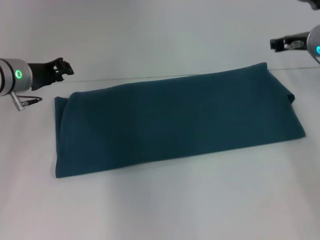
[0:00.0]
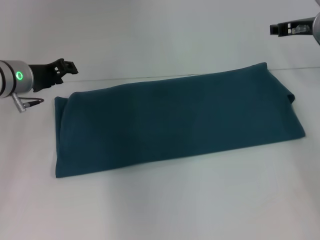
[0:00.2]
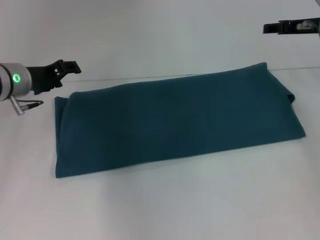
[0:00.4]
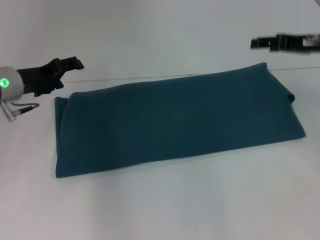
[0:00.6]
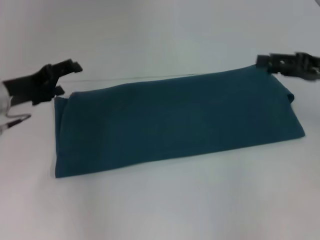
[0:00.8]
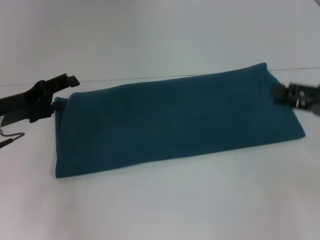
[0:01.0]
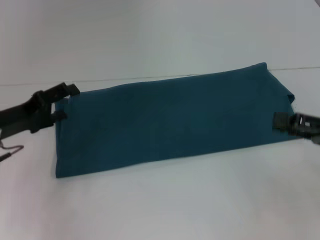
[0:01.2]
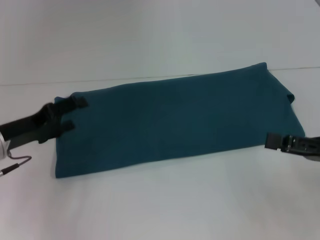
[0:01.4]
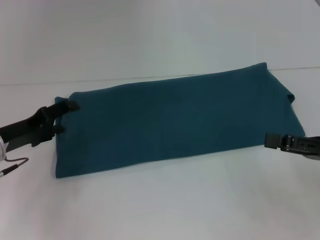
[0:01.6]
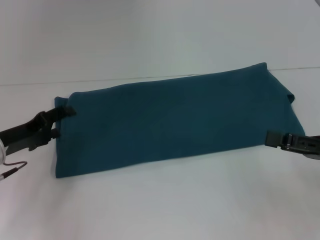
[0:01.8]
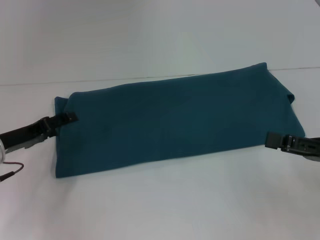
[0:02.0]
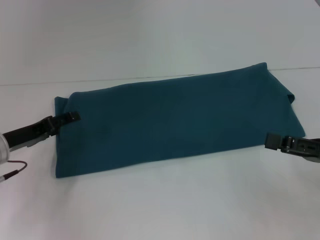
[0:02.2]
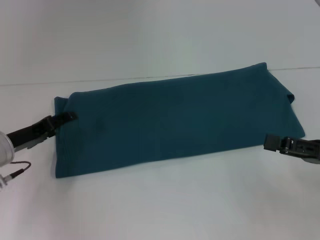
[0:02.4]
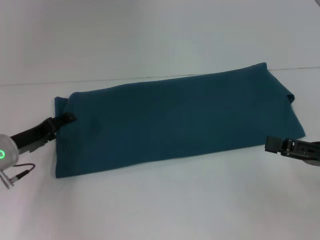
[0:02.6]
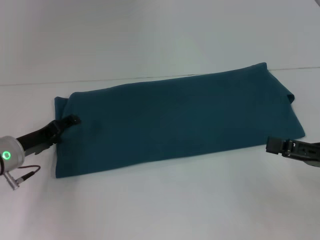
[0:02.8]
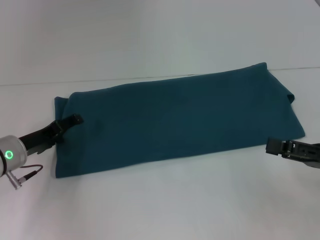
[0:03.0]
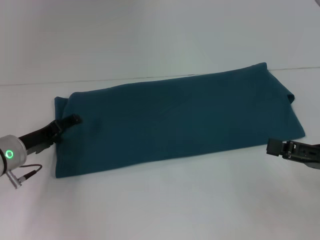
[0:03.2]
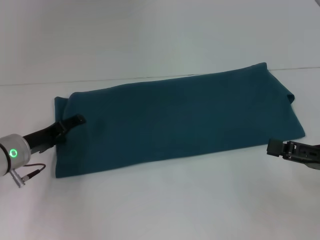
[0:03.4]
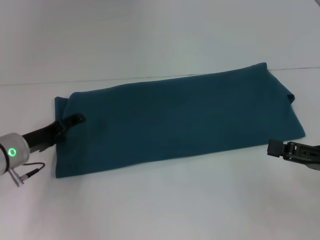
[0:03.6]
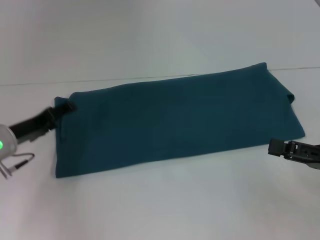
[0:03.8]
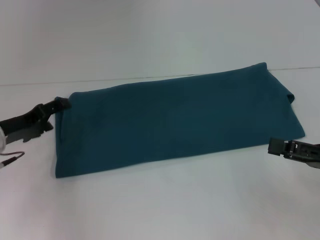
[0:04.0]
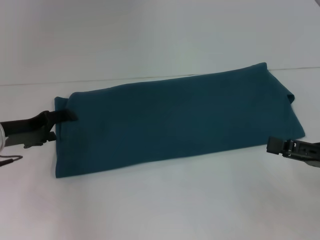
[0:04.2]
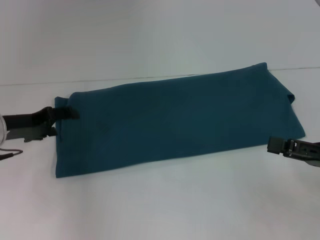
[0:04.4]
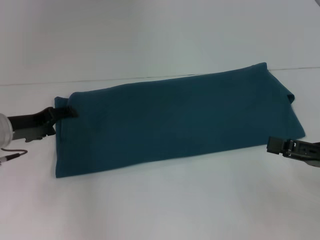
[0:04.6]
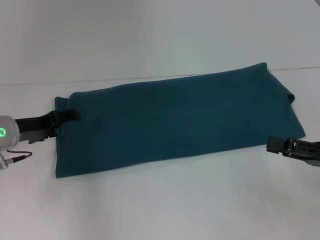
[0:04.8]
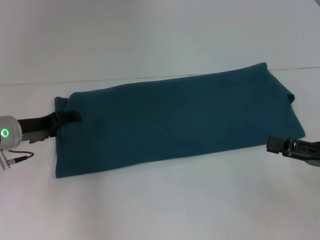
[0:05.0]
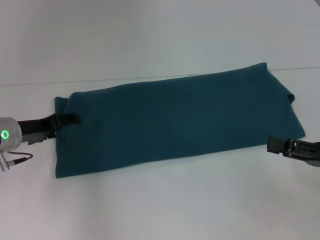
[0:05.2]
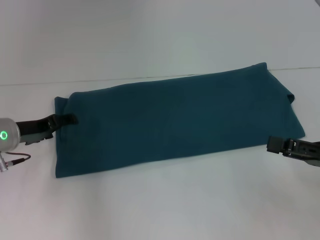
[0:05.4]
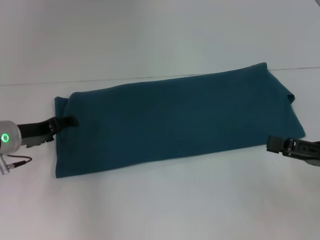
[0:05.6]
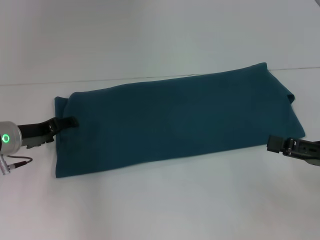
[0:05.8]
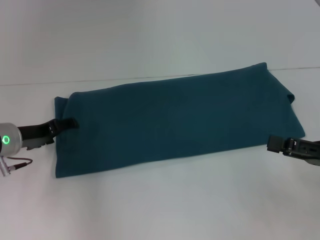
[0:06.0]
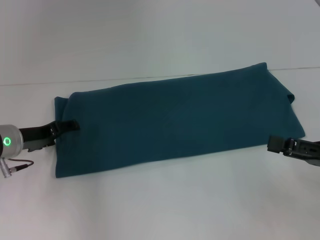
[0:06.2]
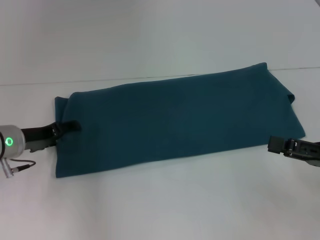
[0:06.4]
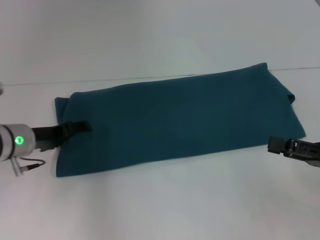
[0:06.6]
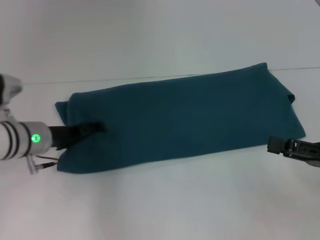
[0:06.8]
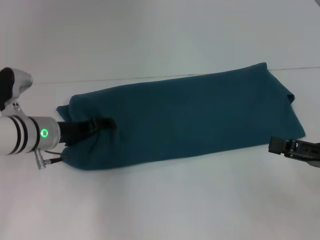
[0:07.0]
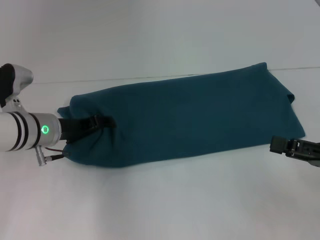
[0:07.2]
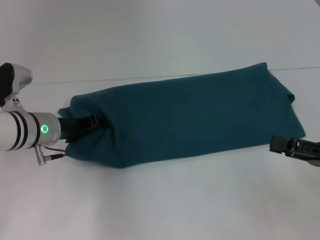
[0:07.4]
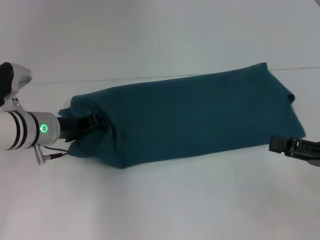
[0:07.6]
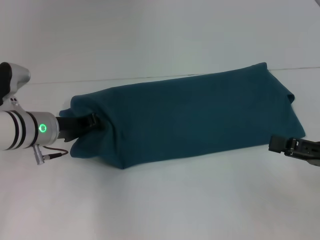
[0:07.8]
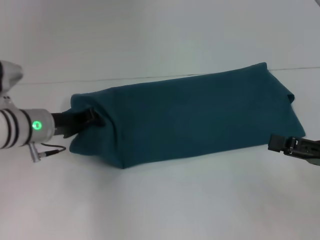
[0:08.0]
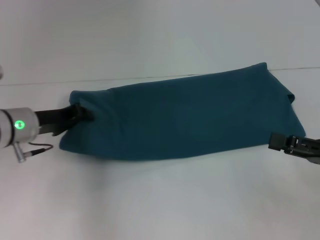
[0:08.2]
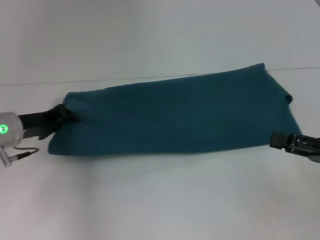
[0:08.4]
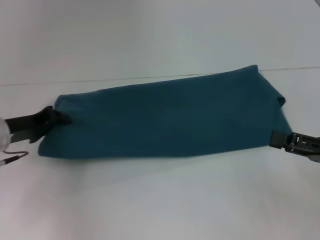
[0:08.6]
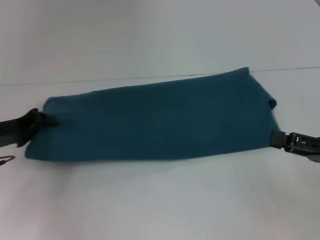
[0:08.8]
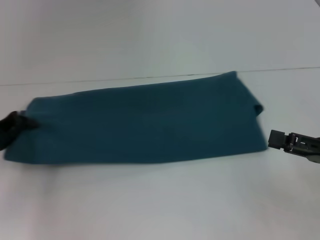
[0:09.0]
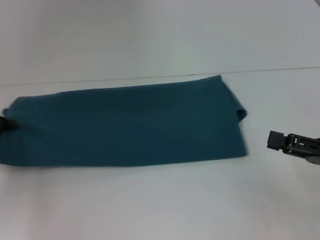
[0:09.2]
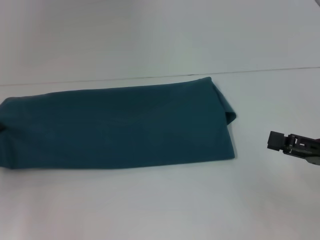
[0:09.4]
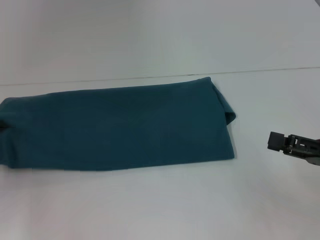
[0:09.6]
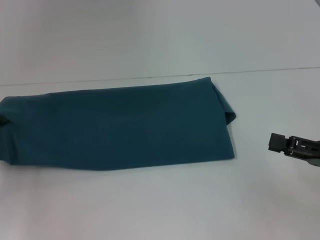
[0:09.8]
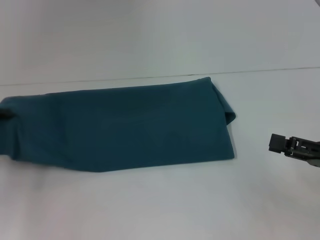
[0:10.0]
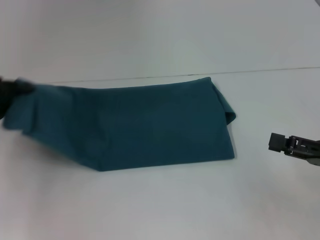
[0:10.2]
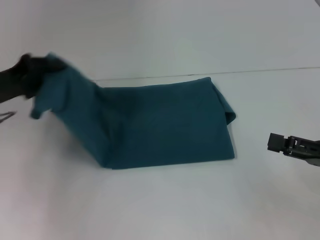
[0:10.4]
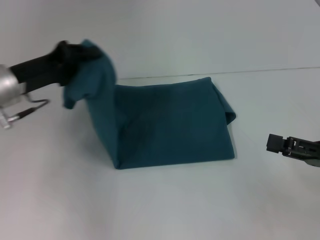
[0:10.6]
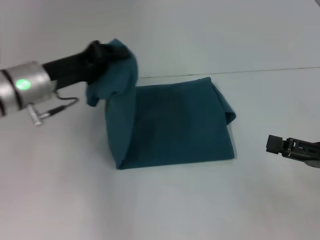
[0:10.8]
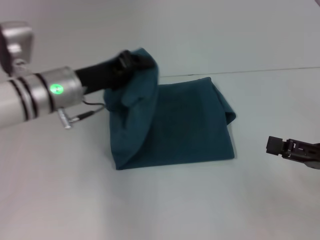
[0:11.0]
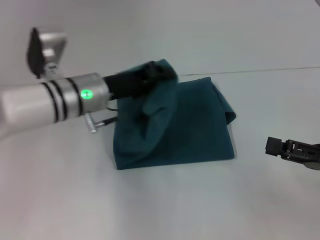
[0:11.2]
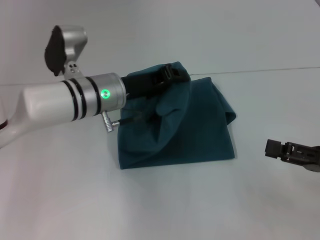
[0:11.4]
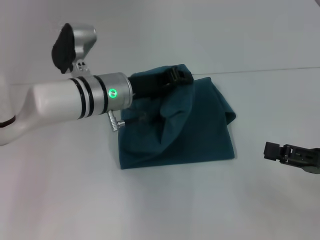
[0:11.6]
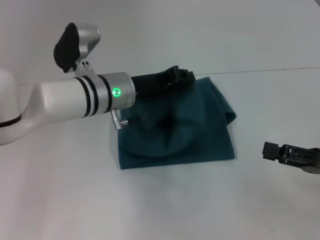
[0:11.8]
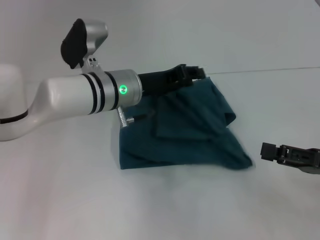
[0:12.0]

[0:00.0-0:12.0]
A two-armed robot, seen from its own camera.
0:00.0 to 0:01.6: The right gripper moves backward, roughly 20 cm, and opens. Meanwhile the left gripper travels backward and downward by approximately 10 cm, and opens.
0:01.6 to 0:03.0: The grippers move only a little.
0:03.0 to 0:04.4: The left gripper goes about 5 cm upward.
0:04.4 to 0:06.0: The grippers move only a little.
0:06.0 to 0:07.6: The left gripper shifts approximately 5 cm to the right, and closes up.
0:07.6 to 0:09.0: The left gripper goes some 10 cm to the left, and closes up.
0:09.0 to 0:10.4: The left gripper travels upward by approximately 5 cm.
0:10.4 to 0:12.0: The left gripper moves to the right, some 20 cm.

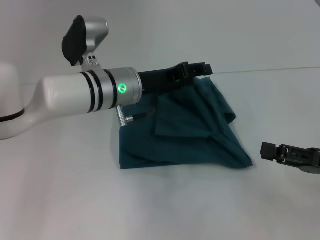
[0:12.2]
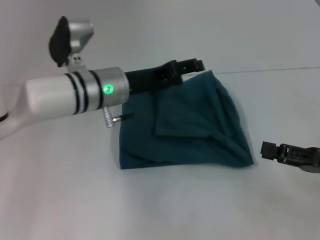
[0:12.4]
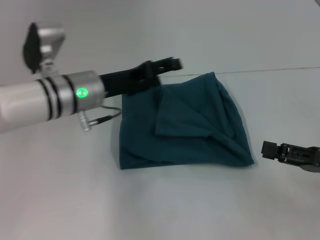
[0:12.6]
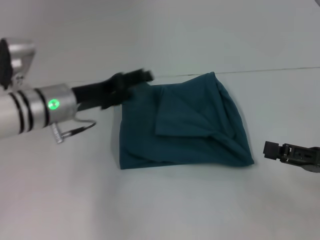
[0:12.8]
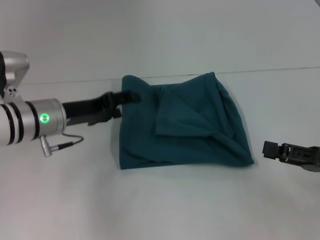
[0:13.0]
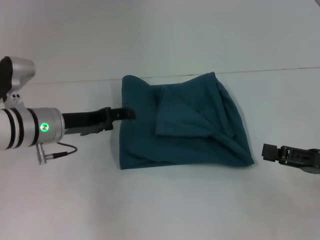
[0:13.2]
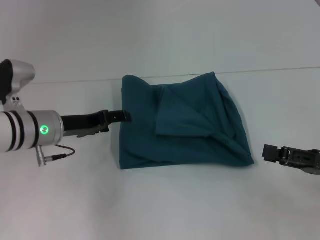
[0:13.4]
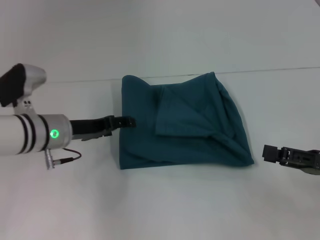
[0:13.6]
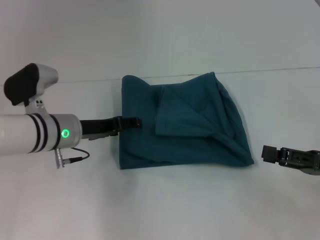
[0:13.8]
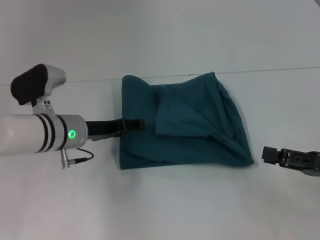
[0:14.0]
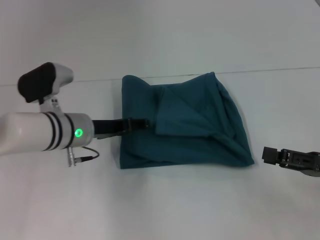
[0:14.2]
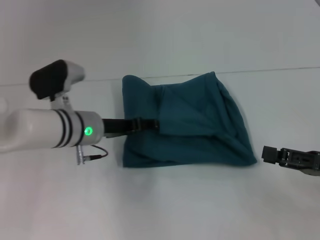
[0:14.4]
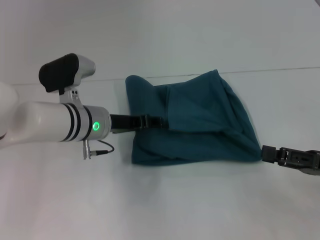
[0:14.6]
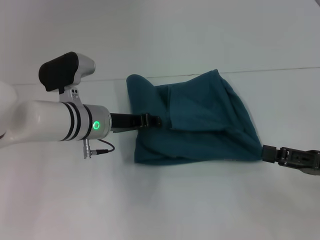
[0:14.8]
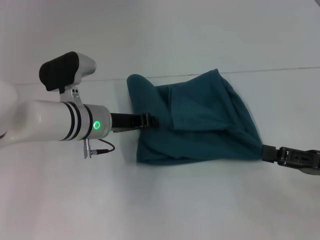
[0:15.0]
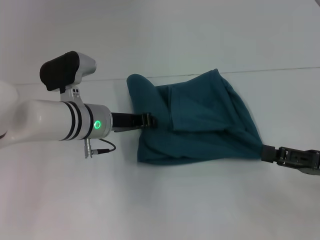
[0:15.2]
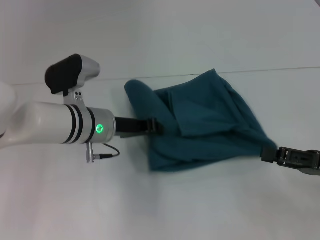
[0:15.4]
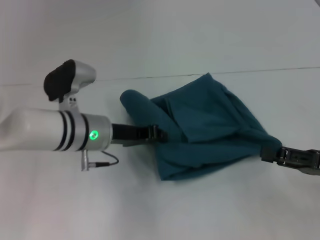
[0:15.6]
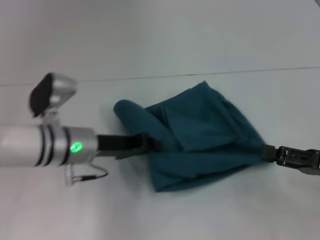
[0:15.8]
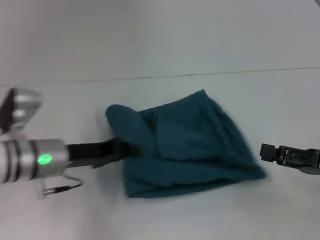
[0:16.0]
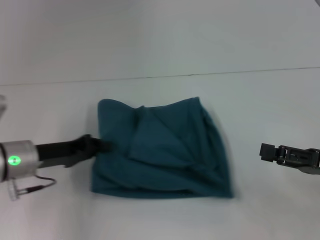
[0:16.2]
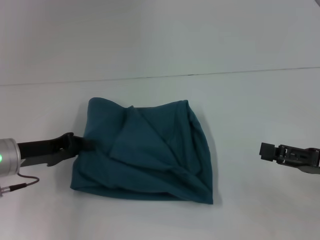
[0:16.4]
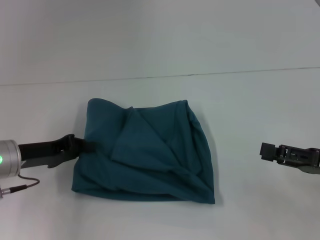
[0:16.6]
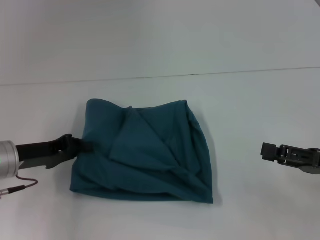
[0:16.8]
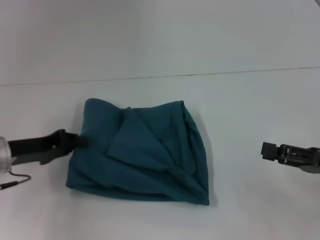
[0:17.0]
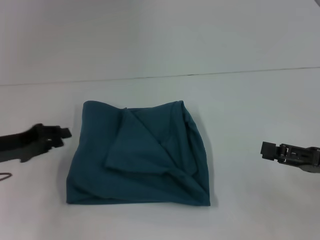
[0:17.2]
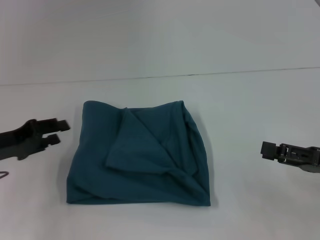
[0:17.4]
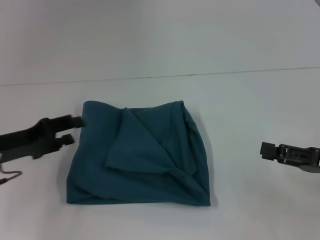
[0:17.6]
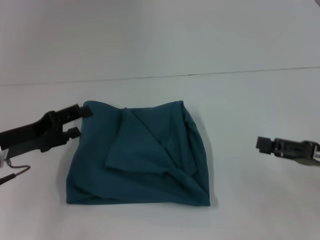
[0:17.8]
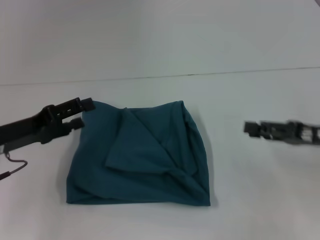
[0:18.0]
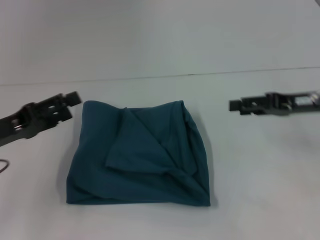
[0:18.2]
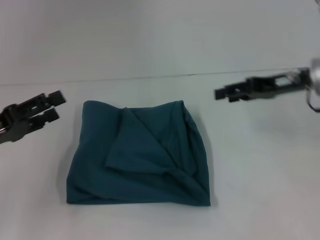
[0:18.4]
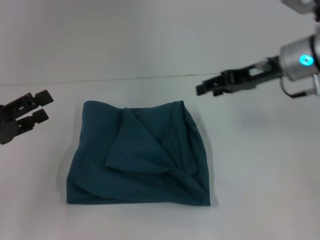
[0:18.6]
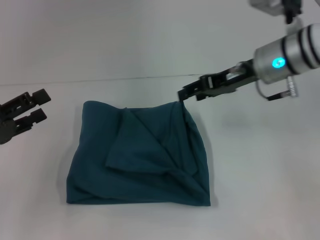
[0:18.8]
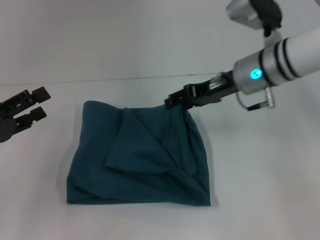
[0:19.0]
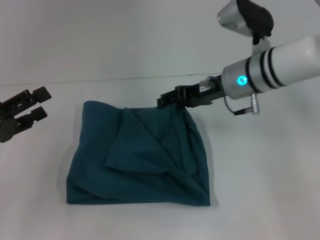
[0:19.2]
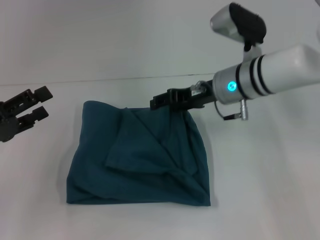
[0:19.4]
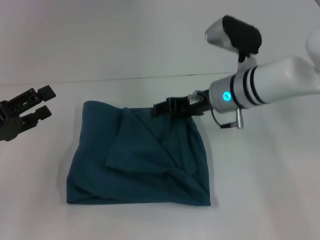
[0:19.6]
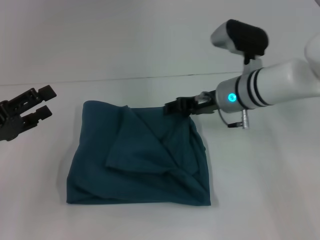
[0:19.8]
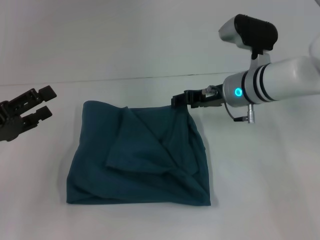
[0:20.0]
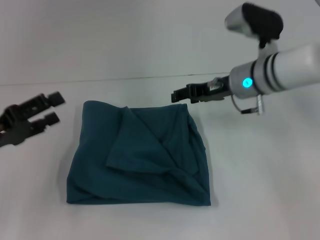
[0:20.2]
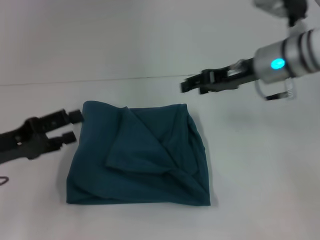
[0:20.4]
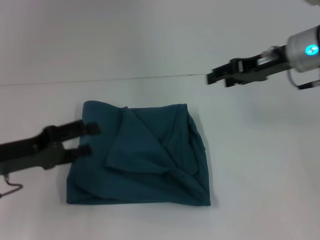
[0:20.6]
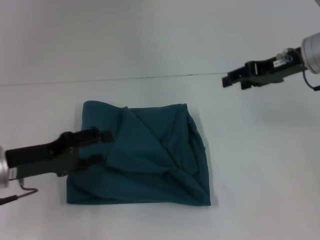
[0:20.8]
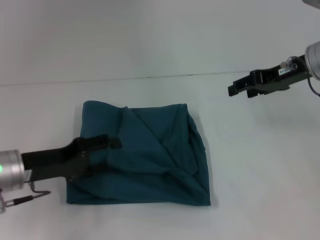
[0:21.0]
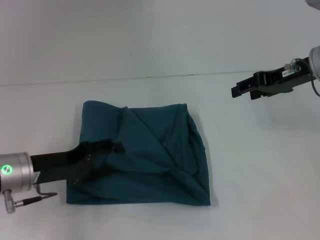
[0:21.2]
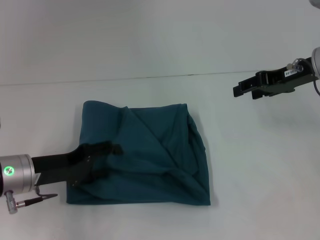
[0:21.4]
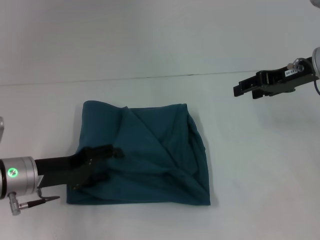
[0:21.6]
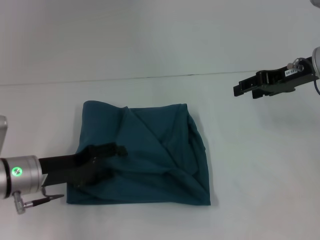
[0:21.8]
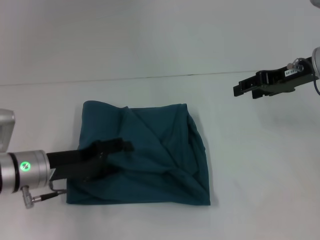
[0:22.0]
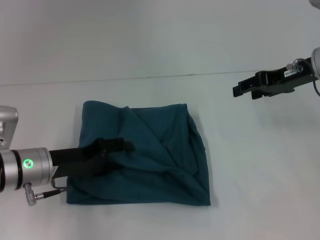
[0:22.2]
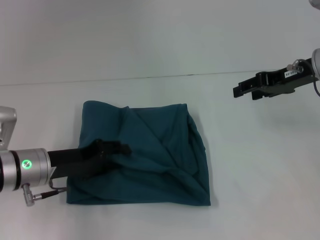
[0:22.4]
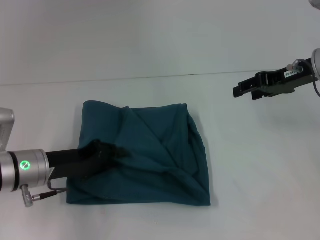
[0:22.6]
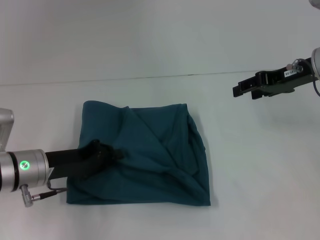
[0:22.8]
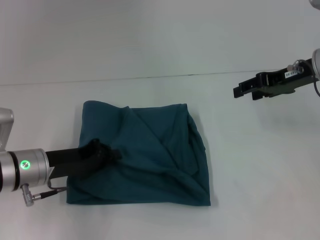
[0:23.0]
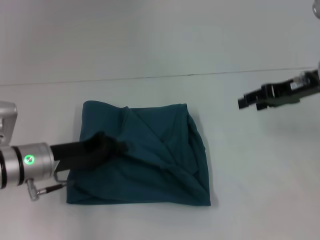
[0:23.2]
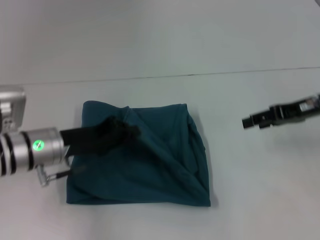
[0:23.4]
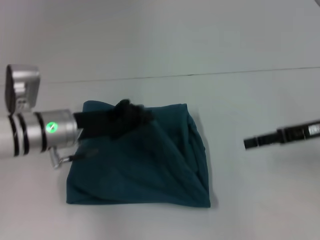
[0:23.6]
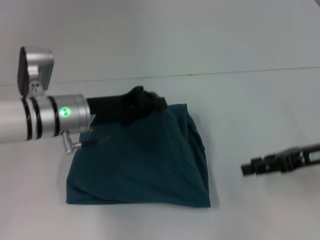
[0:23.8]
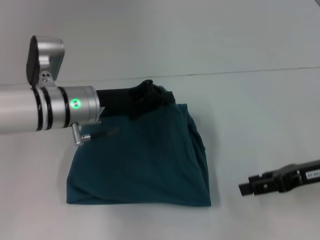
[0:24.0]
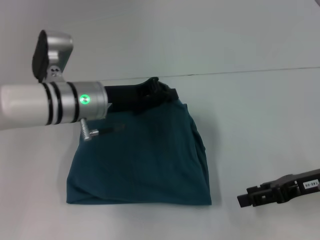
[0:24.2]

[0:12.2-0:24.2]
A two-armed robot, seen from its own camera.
0:12.2 to 0:13.8: The left gripper is displaced to the left and downward by approximately 10 cm, and opens.
0:13.8 to 0:15.2: The left gripper travels to the right by approximately 5 cm, and closes up.
0:15.2 to 0:16.6: The left gripper heads to the left and backward, covering roughly 15 cm.
0:16.6 to 0:18.2: The right gripper goes approximately 10 cm forward and upward, while the left gripper ends up some 5 cm from where it was, and opens its fingers.
0:18.2 to 0:19.8: The right gripper is displaced to the left and forward by about 15 cm.
0:19.8 to 0:21.2: The left gripper heads to the right, covering some 5 cm. Meanwhile the right gripper moves to the right and upward, roughly 15 cm.
0:21.2 to 0:22.6: There are only small adjustments of the grippers.
0:22.6 to 0:24.2: The right gripper travels backward and downward by roughly 15 cm. The left gripper moves to the right, upward and forward, roughly 15 cm, and closes.
